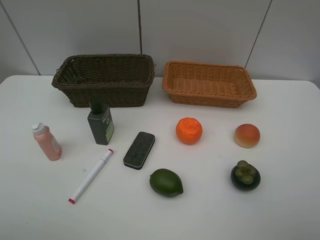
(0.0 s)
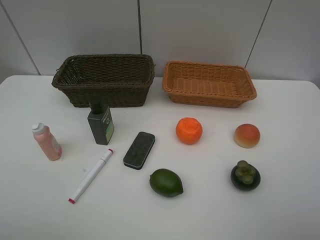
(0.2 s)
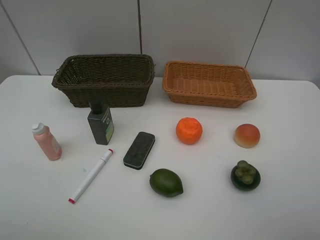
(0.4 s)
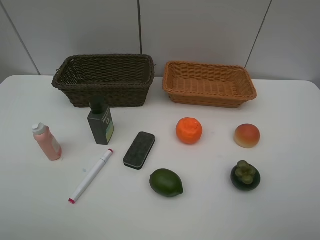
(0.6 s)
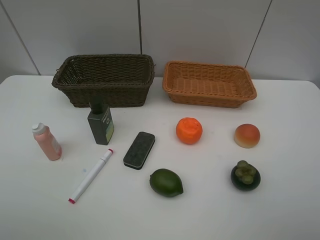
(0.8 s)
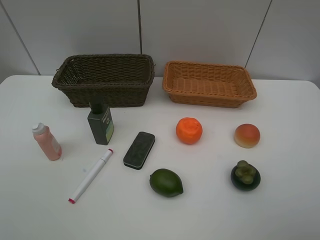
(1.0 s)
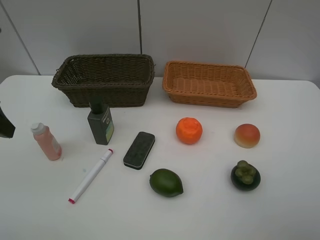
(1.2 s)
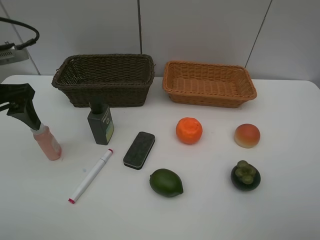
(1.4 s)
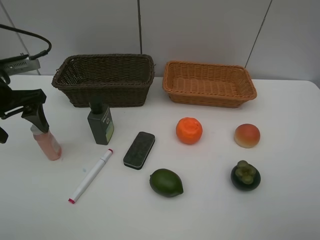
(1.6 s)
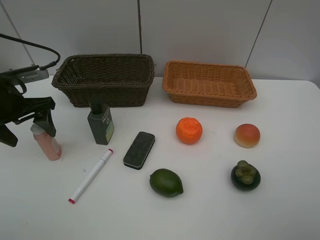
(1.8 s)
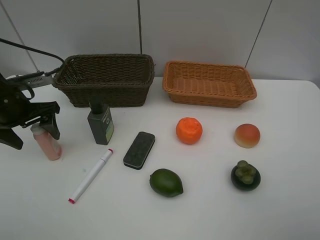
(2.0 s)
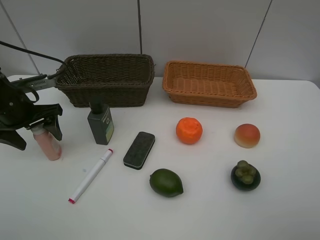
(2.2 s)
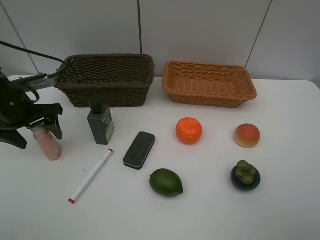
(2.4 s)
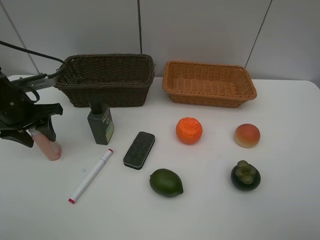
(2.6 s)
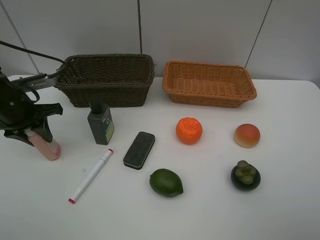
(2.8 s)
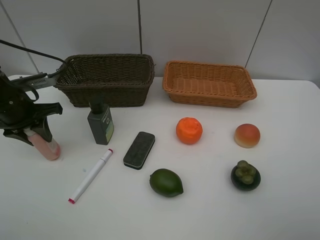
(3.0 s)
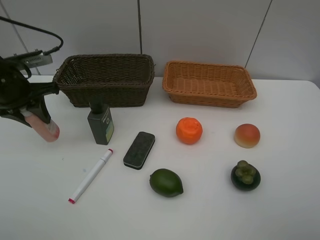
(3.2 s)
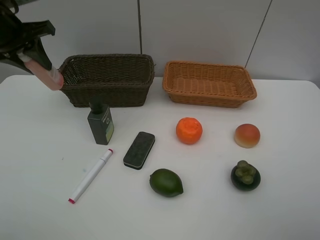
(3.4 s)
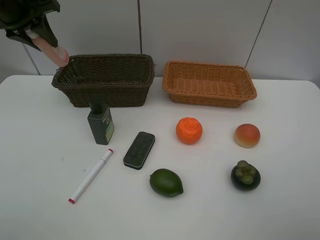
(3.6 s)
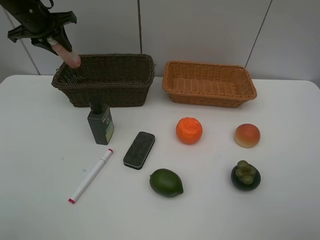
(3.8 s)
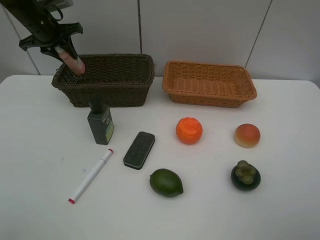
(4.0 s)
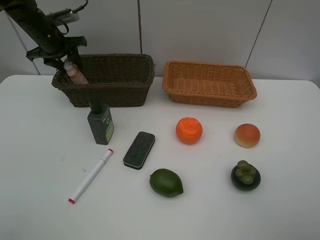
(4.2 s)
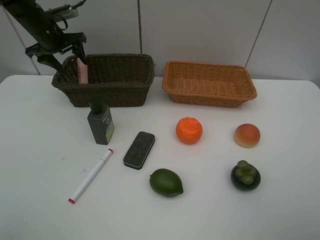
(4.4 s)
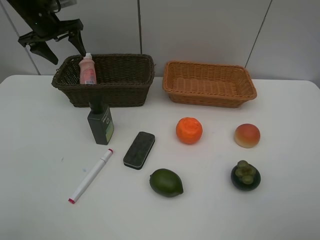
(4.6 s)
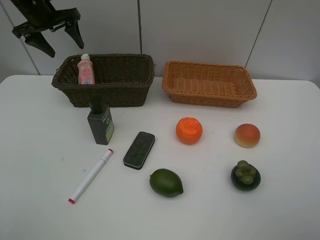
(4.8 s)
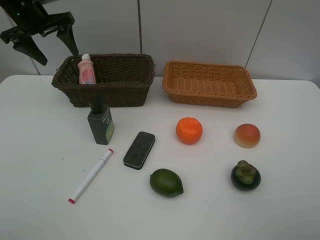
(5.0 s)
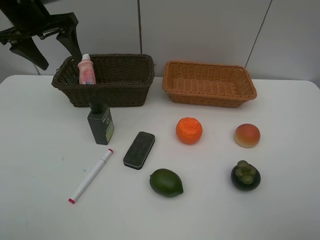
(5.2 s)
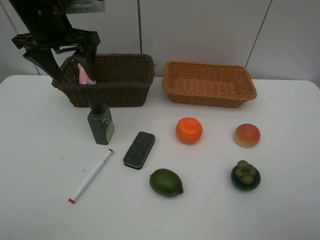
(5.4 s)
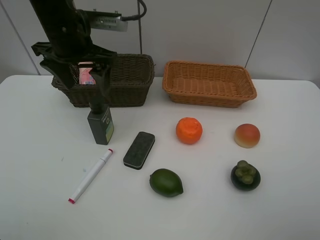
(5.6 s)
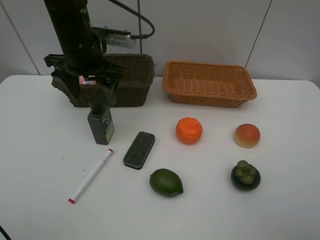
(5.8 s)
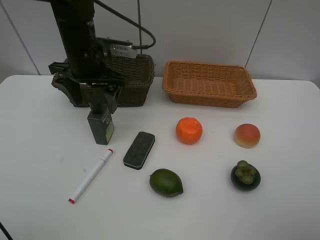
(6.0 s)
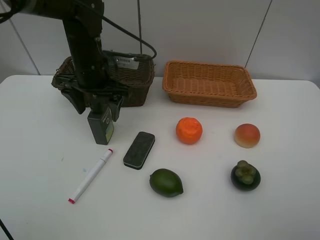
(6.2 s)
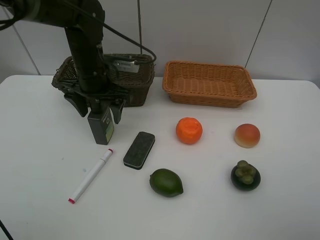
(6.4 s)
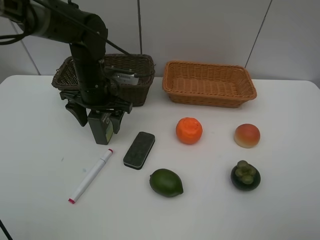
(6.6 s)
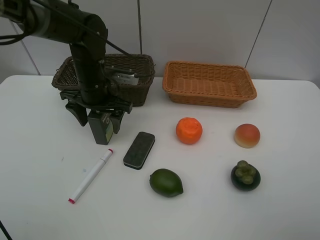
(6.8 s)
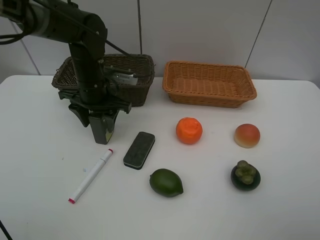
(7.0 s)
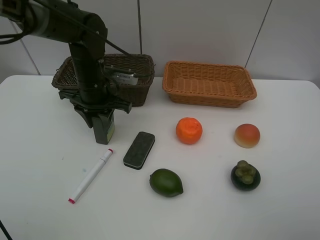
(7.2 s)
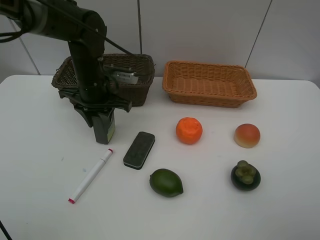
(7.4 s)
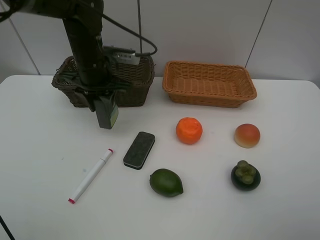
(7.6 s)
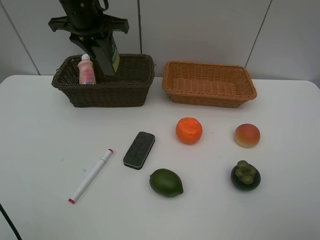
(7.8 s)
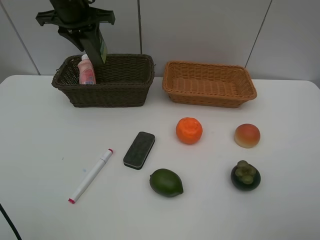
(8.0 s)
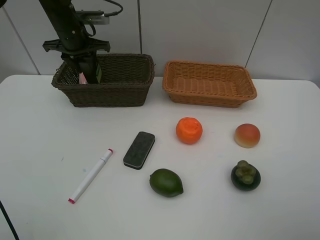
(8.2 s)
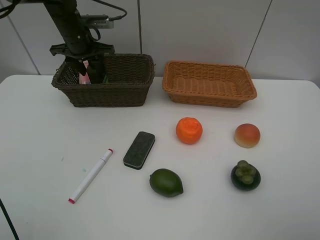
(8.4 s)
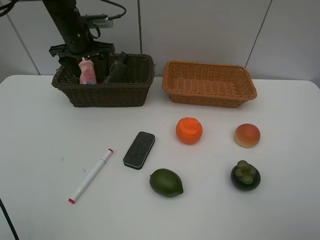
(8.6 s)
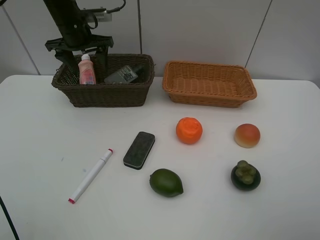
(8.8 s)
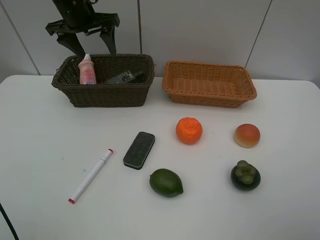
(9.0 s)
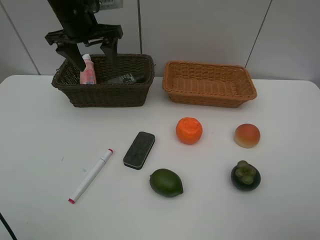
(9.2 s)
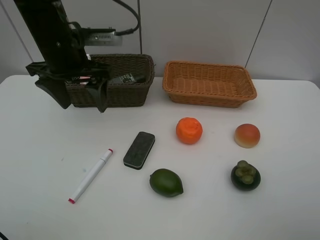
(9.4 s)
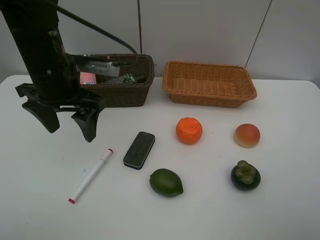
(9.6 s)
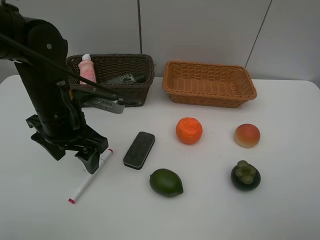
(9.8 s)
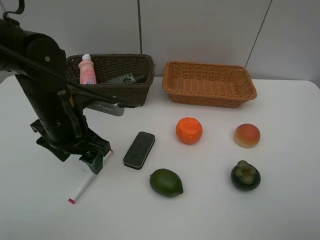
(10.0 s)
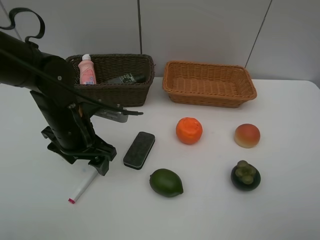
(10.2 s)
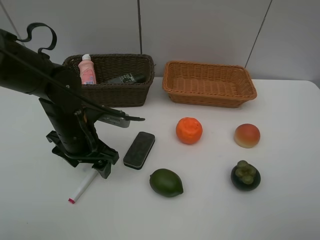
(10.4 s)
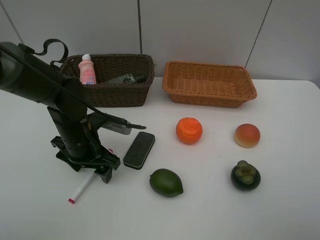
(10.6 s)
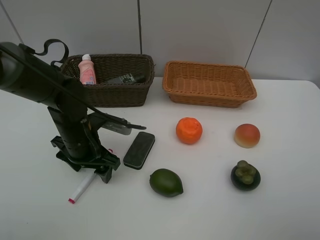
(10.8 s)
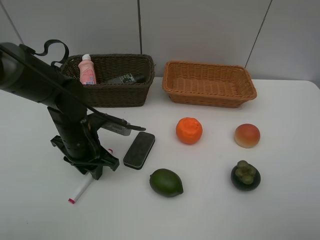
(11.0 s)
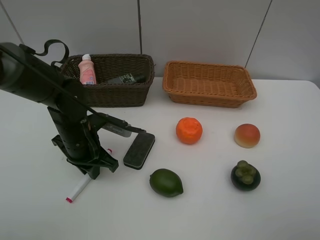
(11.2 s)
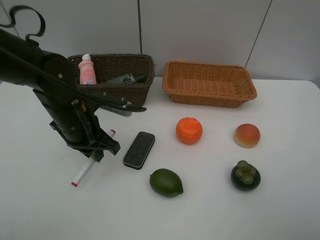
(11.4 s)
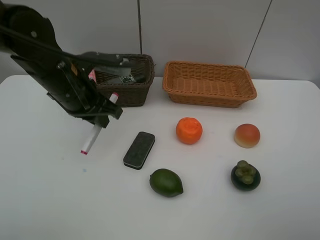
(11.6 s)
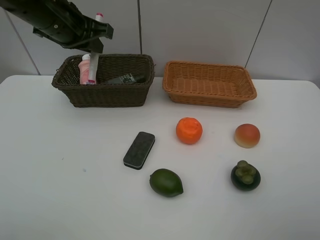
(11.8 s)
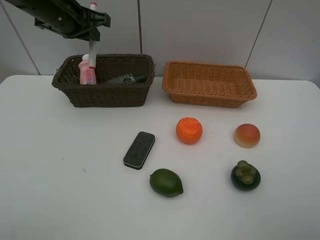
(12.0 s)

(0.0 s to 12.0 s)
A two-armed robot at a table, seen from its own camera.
Task of the whole recording: Place multiple objects separately in different baskets.
Step, 0.0 s - 3.0 s: Pick up the laundry detergent with left gripper.
Step, 3.2 s - 4.4 s: Place the laundry detergent in the dark basket with left gripper.
Step, 4.6 s - 7.6 s: Pick up the hard facial cleanser with left gripper.
Step, 7.8 s - 8.6 s: Place the hard facial cleanser in the dark basket with left gripper.
Step, 8.8 s - 11.2 s: Pick up the red marker with left gripper.
0.0 s - 1.6 s: The left gripper shifts roughly 25 cm forward.
1.6 s - 3.0 s: The left gripper moves downward, some 5 cm, and closes its fingers.
3.0 s - 4.4 s: The left gripper shifts approximately 20 cm forward, and opens up.
4.4 s - 6.0 s: The left gripper travels to the right and backward by roughly 20 cm.
6.0 s - 7.6 s: The left gripper closes.
7.6 s - 9.0 s: The left gripper travels forward and upward by some 10 cm, and opens.
9.0 s - 10.4 s: The left gripper is displaced backward and downward by roughly 25 cm.
10.4 s - 12.0 s: The left gripper shifts some 20 cm upward and forward, and closes up.

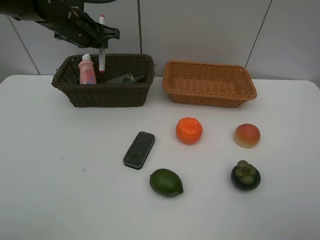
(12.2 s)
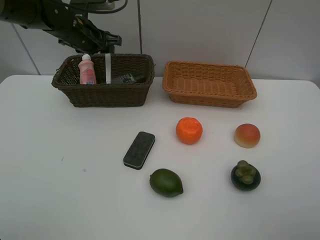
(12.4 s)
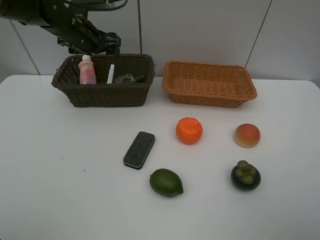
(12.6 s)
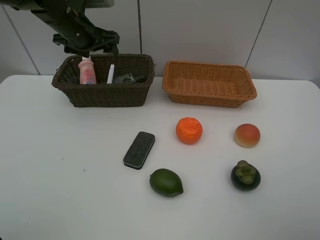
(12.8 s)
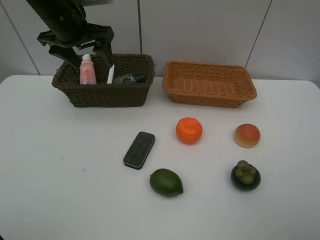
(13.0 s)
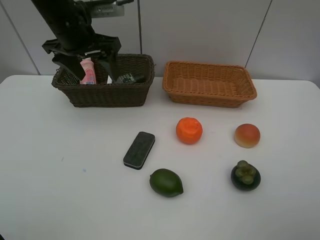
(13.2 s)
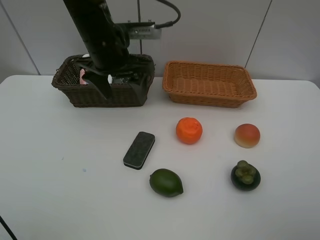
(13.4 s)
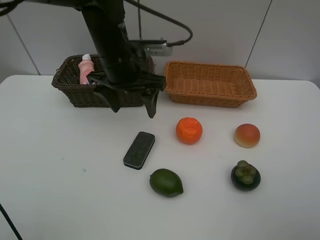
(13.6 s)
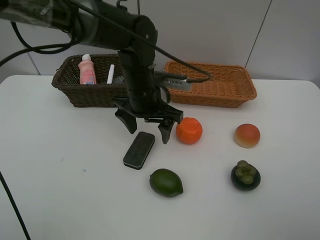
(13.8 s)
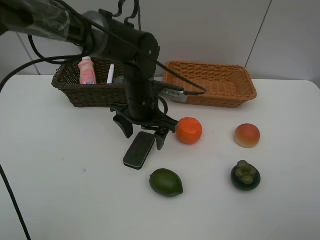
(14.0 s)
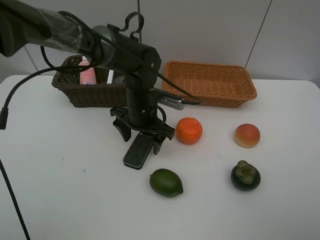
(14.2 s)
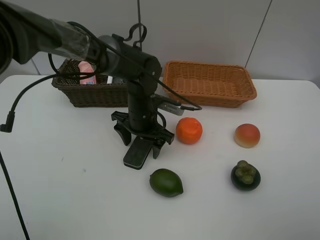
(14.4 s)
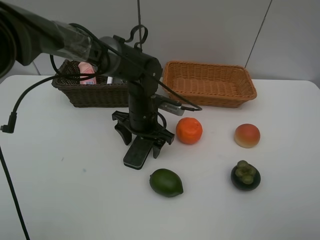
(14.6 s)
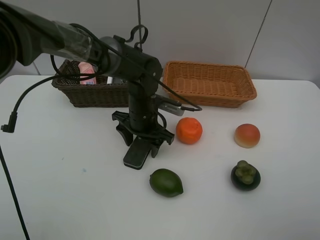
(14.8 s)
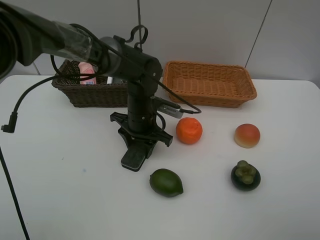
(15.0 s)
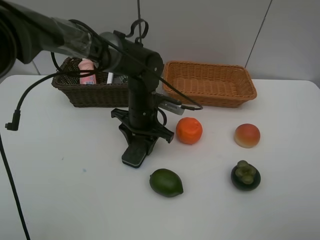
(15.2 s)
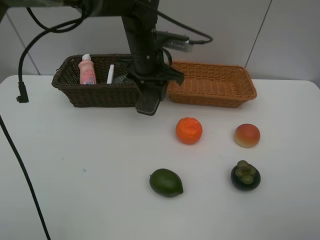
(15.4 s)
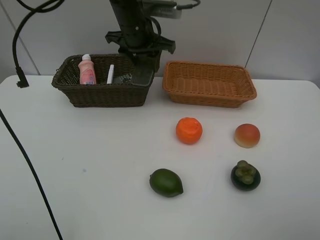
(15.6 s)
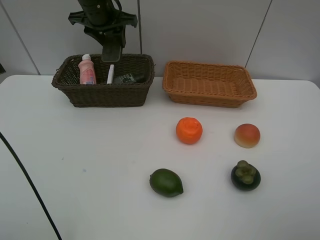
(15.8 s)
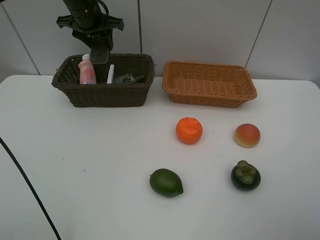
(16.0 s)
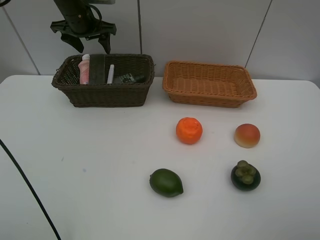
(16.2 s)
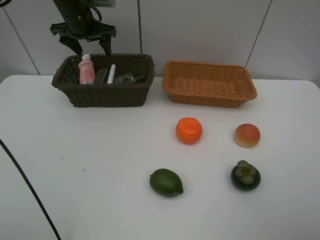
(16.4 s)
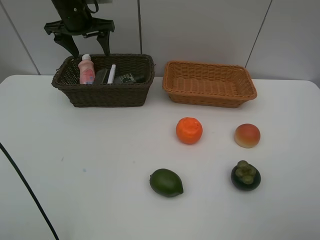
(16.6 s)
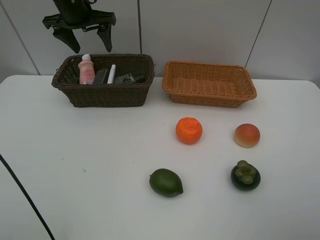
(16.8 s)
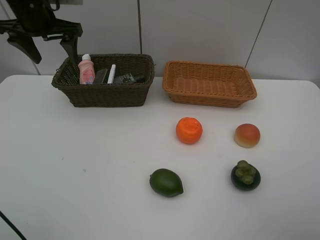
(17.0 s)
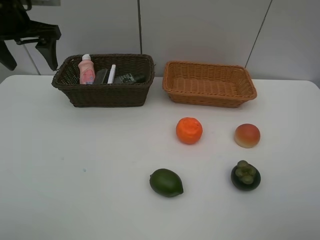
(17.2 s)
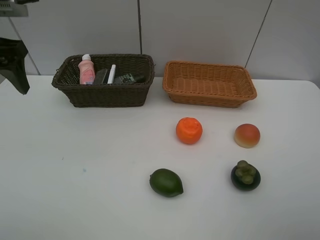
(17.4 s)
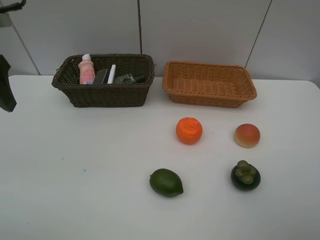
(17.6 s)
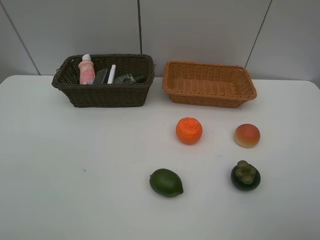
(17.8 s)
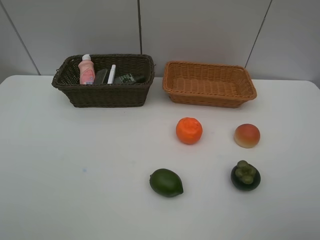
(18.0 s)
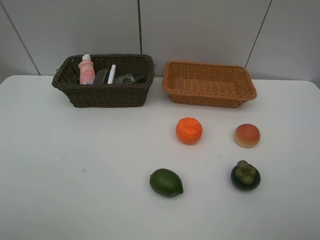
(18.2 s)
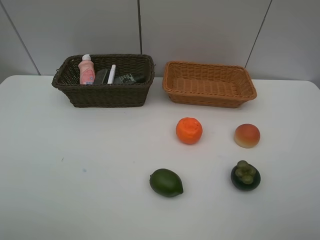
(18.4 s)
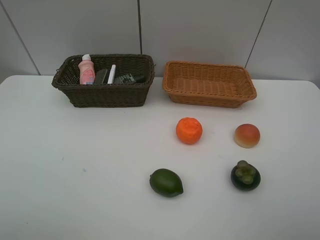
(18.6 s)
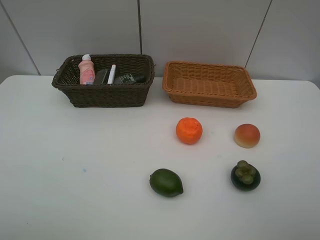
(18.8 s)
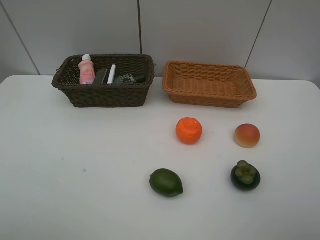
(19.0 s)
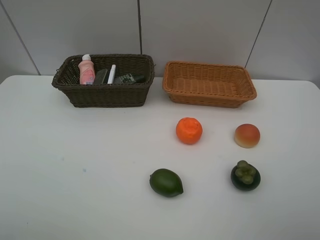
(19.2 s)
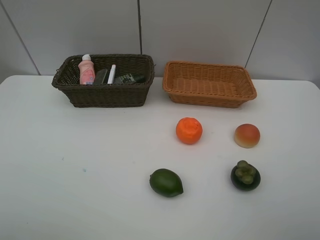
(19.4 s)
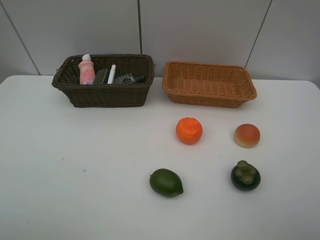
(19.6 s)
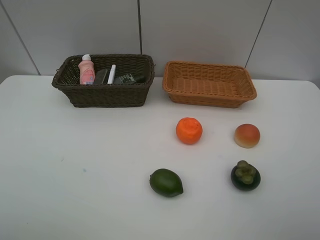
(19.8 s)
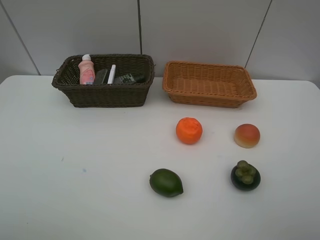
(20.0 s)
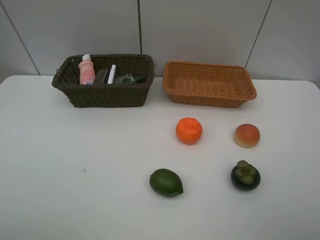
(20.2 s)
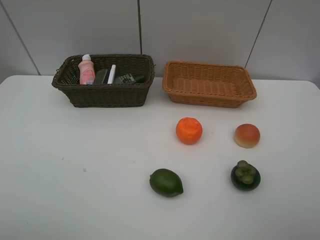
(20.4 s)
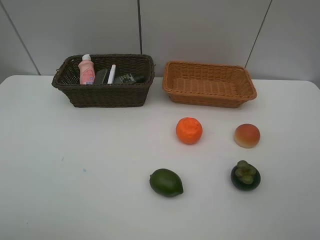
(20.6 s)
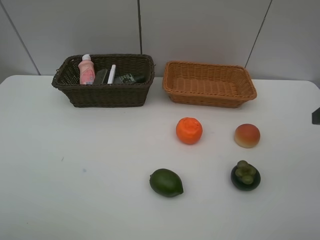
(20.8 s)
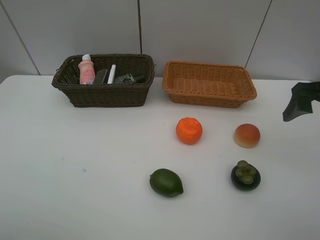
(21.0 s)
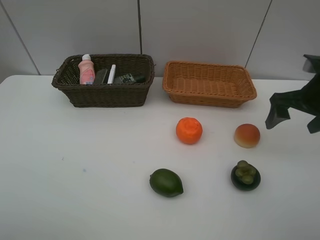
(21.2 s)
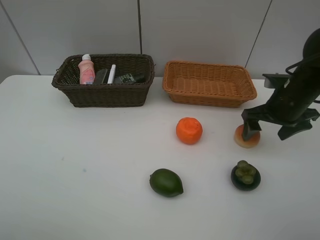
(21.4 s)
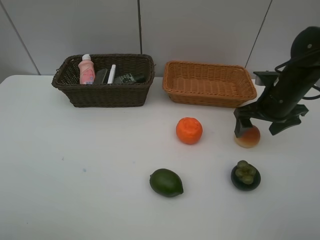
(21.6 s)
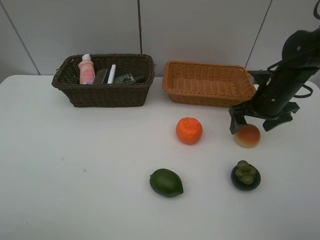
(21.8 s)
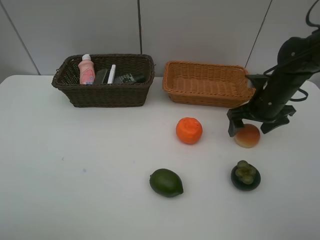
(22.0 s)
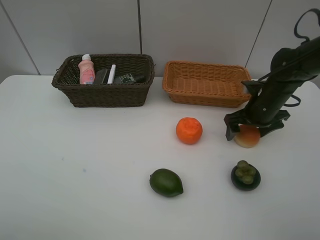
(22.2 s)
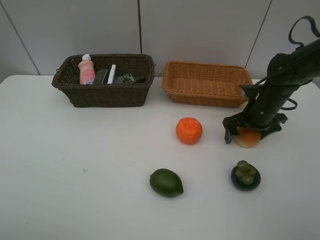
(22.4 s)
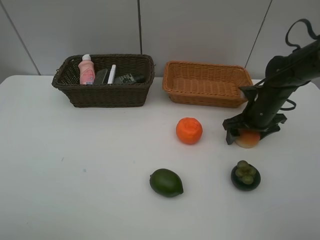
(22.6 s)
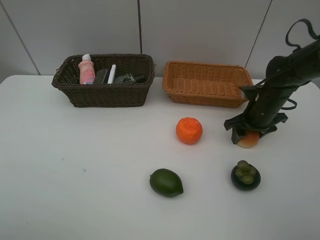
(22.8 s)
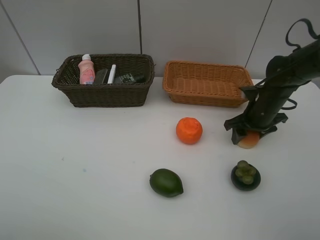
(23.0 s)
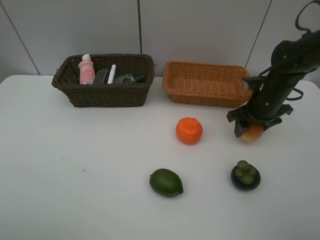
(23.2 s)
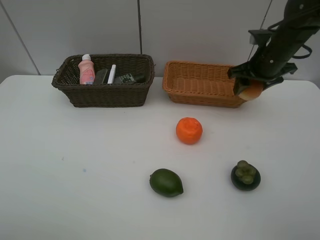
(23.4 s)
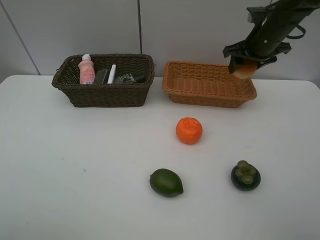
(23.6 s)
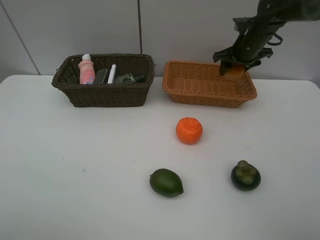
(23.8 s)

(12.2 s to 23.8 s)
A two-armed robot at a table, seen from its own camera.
Task of the whole recording: Place multiple objects separately in different baskets.
Step, 12.6 s - 15.2 s: Pick up blackboard eraser with left gripper.
Step, 15.4 s - 16.4 s: Place the blackboard eraser in the dark basket with left gripper.
Step, 16.6 s - 23.2 s: Pick up egg yolk pastry with right gripper.
12.2 s - 13.6 s: The left gripper heads to the right and backward, covering about 20 cm, and opens.
13.6 s - 15.0 s: The left gripper is displaced downward by some 10 cm, and closes up.
15.0 s - 16.6 s: The left gripper travels upward, to the left and forward by some 30 cm, and opens its fingers.
16.6 s - 18.0 s: The left gripper travels backward by about 40 cm.
19.4 s - 21.0 s: The right gripper is displaced forward by about 25 cm.
21.0 s - 22.4 s: The right gripper shifts some 20 cm downward, forward and to the left.
22.4 s - 23.8 s: The right gripper is displaced forward and upward by some 15 cm, and closes up.
